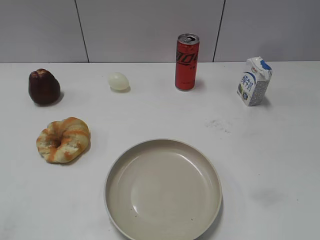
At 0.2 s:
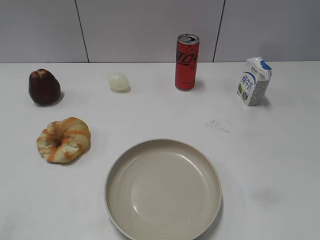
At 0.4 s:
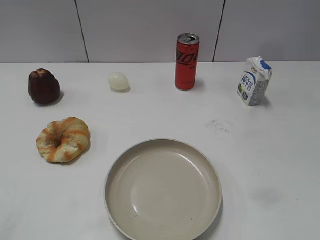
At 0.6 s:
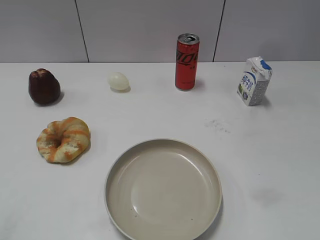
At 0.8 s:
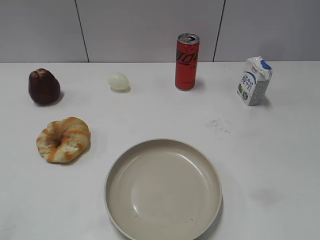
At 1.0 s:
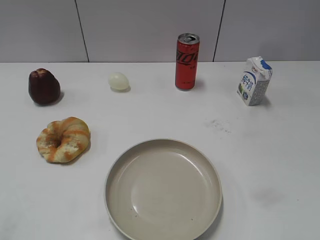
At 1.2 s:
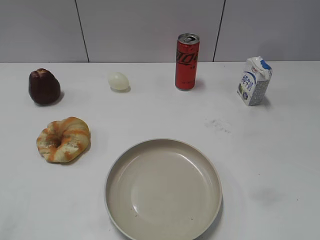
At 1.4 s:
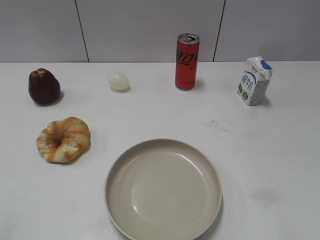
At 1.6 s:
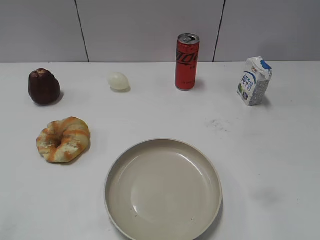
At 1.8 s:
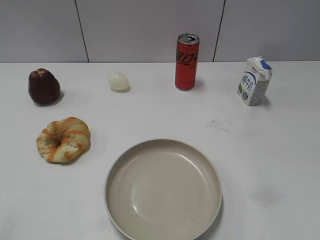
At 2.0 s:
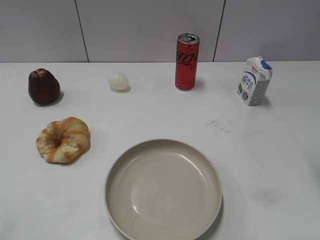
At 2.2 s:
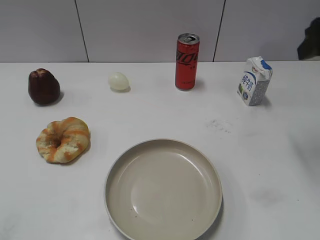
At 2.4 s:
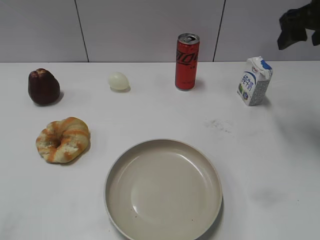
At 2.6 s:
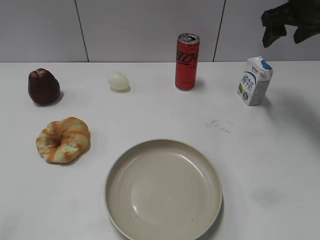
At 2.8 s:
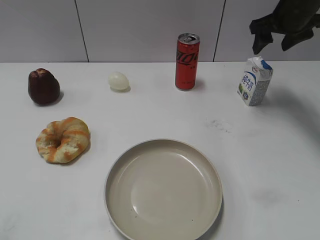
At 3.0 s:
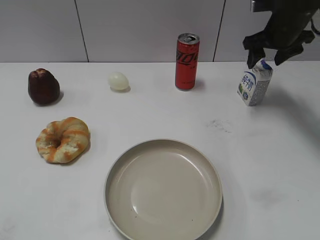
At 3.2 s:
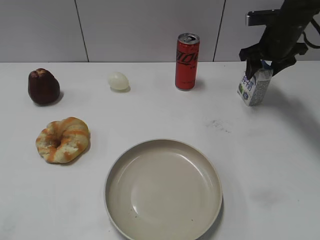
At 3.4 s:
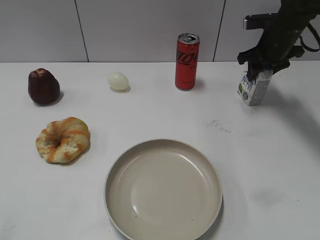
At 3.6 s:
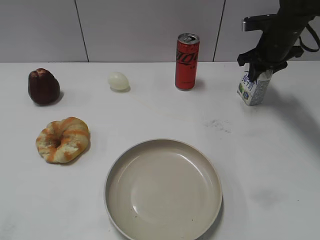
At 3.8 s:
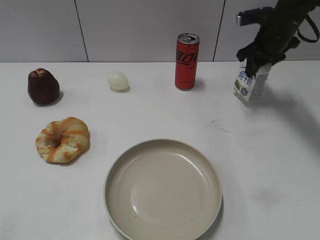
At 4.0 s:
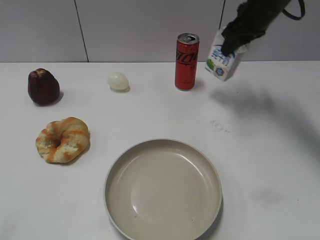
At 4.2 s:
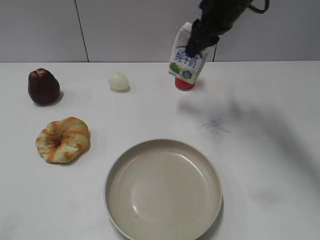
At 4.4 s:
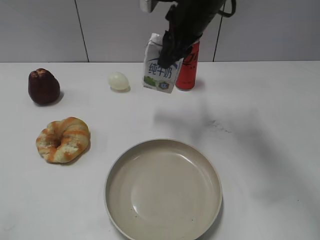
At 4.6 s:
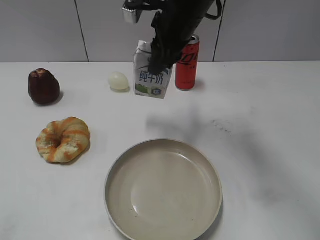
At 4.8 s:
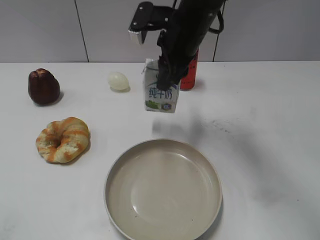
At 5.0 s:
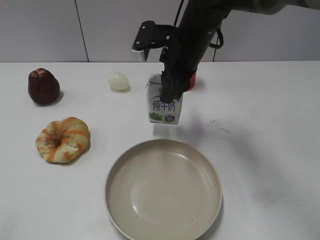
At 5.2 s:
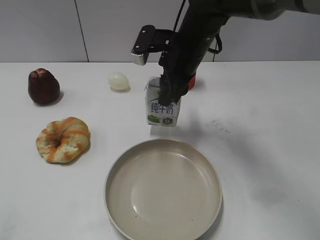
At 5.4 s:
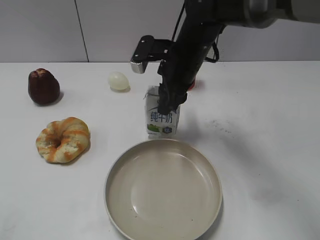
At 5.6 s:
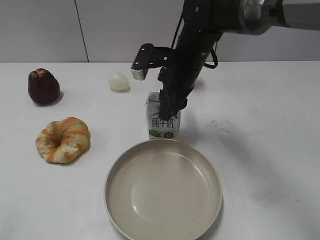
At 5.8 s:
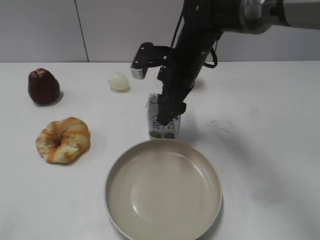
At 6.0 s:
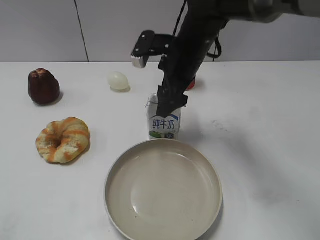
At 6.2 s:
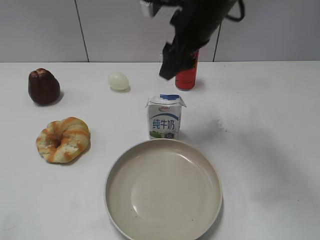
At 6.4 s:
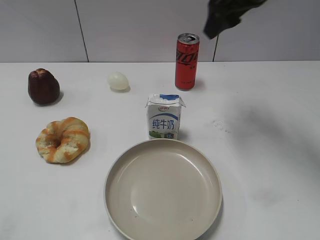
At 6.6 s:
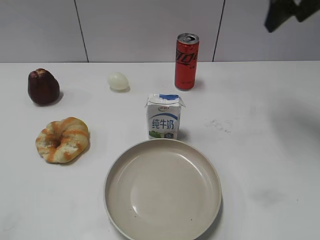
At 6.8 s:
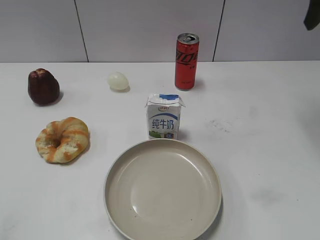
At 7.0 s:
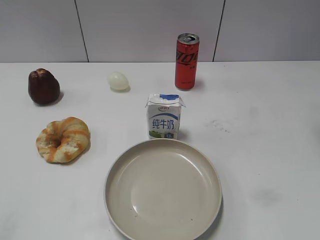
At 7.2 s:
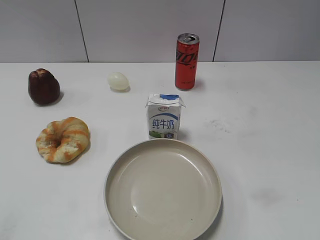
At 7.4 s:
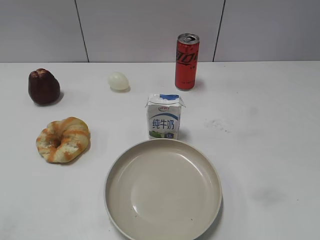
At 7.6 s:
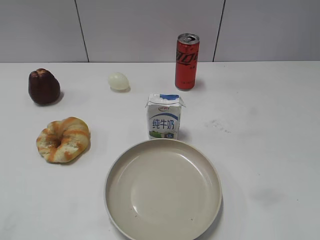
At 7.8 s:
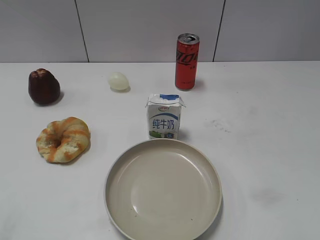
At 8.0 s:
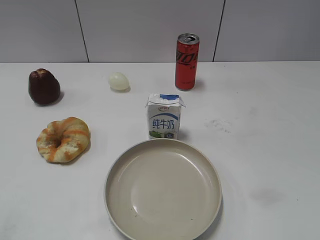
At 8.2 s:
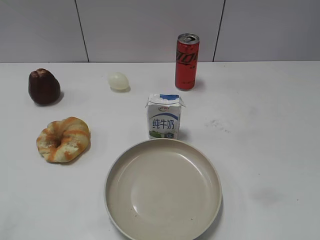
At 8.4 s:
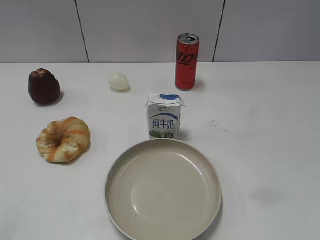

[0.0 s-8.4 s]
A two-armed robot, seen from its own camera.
Step, 1.0 to 3.6 s: Grasp the milk with right gripper.
Step, 3.8 to 5.8 s: Place the milk on the table with right gripper.
1.4 to 2.8 s: The right gripper shifts some 40 cm forward.
2.8 to 4.2 s: The right gripper heads to the left, covering about 15 cm, and closes its fingers.
4.2 to 5.6 s: The right gripper goes about 15 cm downward, to the left and backward.
5.6 to 7.0 s: The right gripper shifts some 35 cm to the right and upward, and opens its fingers.

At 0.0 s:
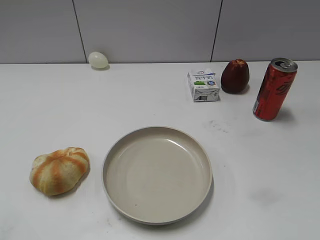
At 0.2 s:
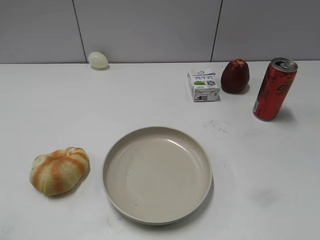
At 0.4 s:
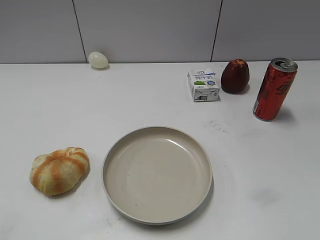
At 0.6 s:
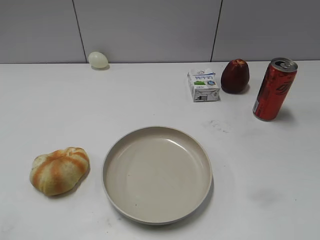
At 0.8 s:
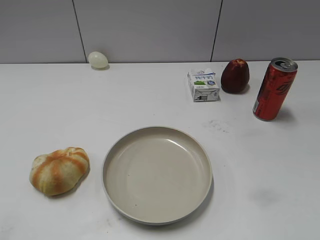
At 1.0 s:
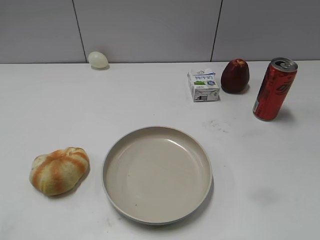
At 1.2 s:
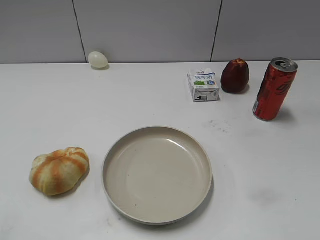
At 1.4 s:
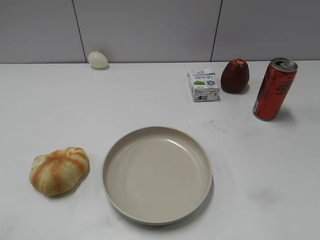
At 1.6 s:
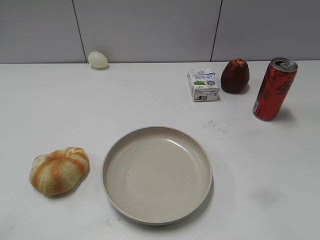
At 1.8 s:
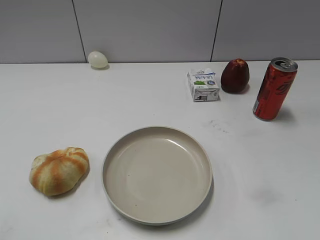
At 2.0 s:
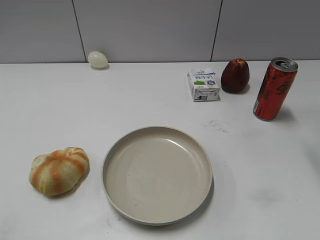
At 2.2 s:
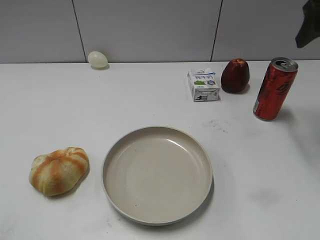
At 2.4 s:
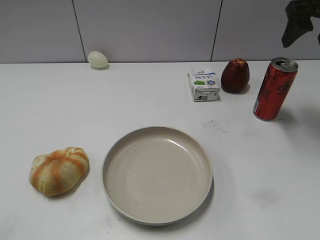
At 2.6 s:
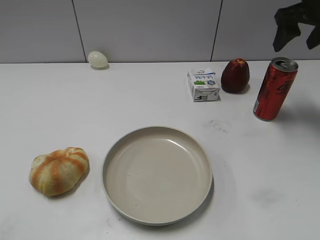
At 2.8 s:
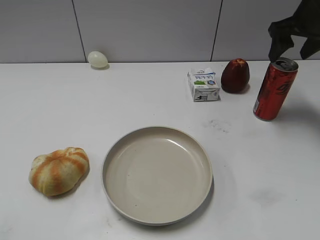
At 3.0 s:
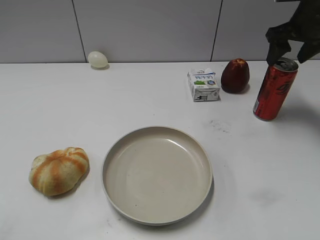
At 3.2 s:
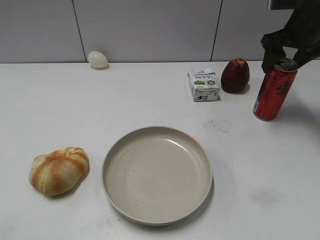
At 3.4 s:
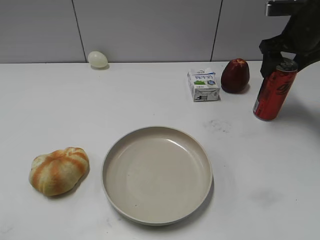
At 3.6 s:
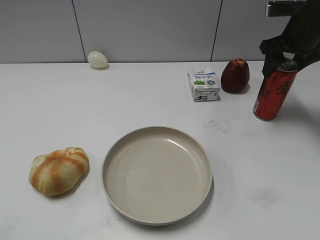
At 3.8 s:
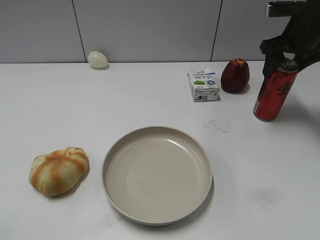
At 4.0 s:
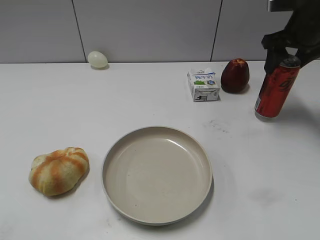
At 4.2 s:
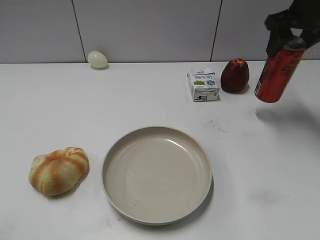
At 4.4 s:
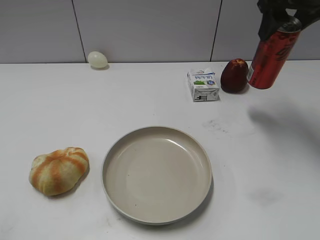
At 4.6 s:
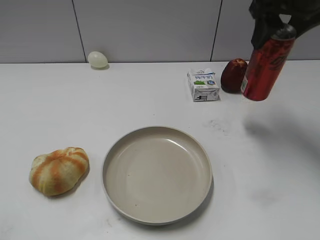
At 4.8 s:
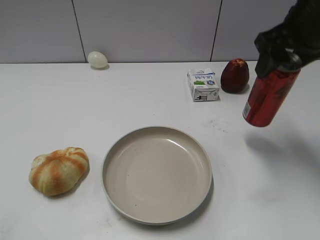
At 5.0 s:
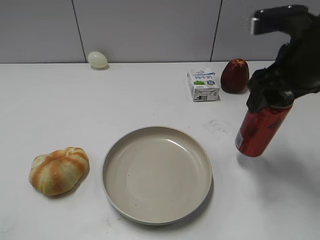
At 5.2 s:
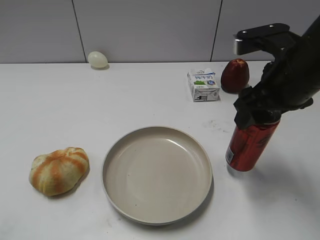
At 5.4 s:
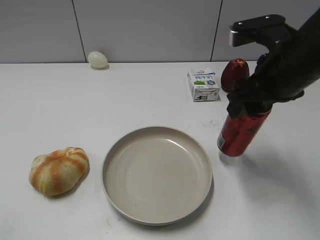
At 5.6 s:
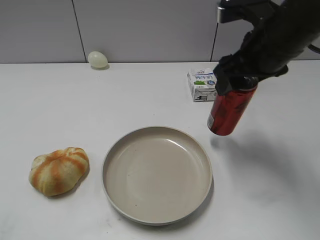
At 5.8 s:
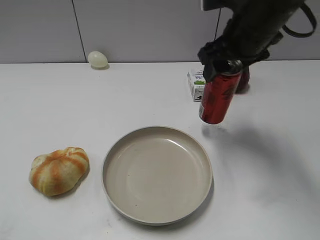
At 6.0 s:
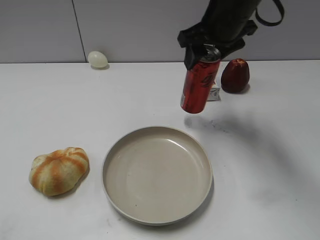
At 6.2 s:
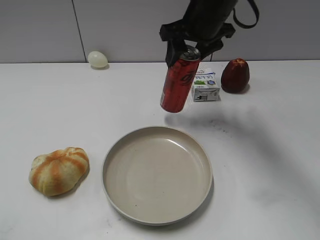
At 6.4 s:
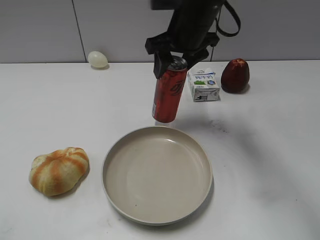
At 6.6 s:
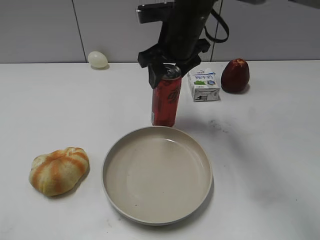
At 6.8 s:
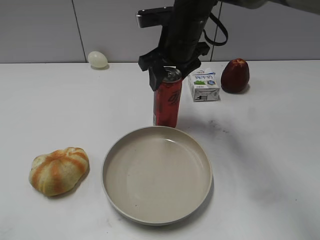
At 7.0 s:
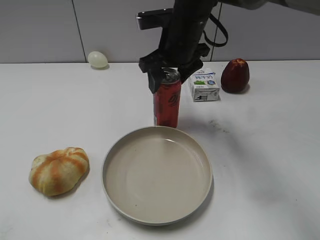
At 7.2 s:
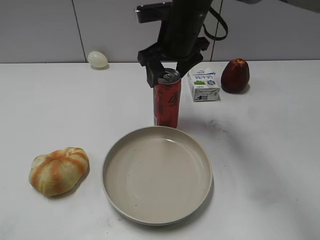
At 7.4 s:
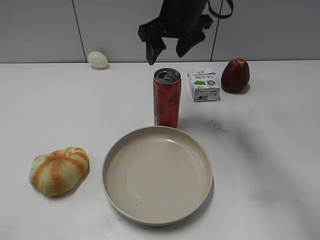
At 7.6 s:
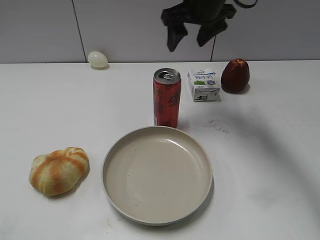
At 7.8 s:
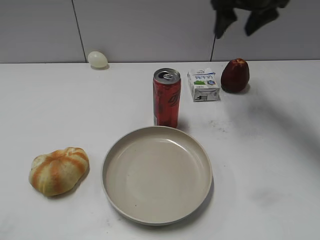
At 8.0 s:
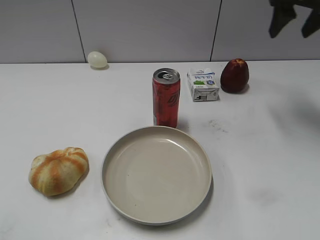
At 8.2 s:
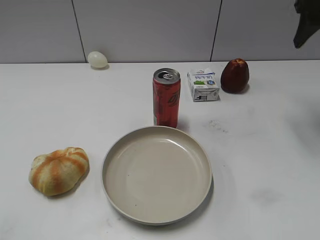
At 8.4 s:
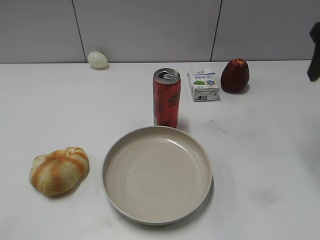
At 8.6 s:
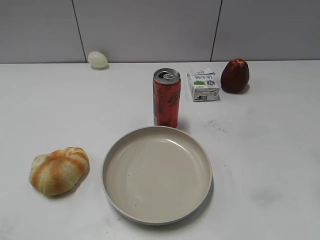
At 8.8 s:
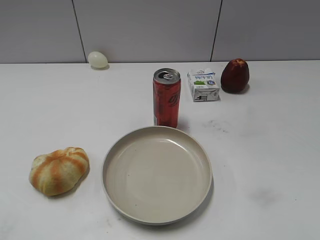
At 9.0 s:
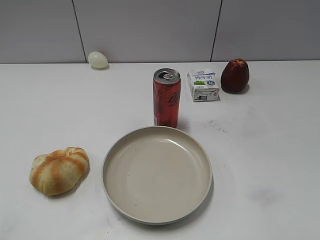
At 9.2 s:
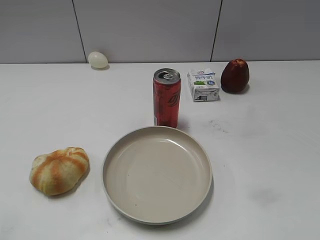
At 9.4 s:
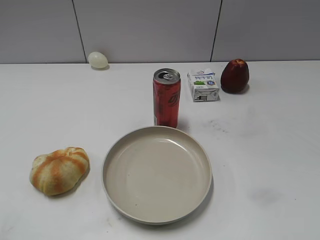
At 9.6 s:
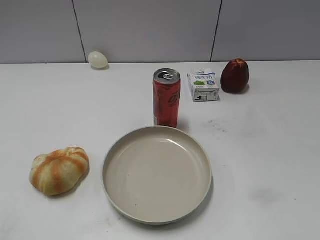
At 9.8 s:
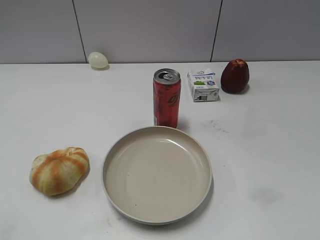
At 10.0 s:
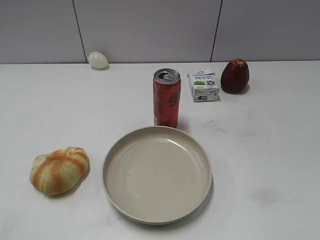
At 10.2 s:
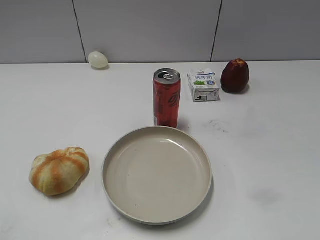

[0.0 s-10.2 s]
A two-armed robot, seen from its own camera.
Step, 0.8 to 3.8 s: Grasp the cola with right gripper.
Step, 4.0 to 7.2 s: Place the cola on the table with right gripper.
1.4 to 3.0 s: The right gripper heads forward, covering some 40 cm.
3.0 to 4.4 s: The right gripper is displaced upward by approximately 5 cm, and closes.
4.4 to 5.8 s: The right gripper heads to the left and downward, covering approximately 10 cm, and reaches roughly 15 cm backward, then returns.
5.8 to 7.2 s: The right gripper shifts about 10 cm to the left and forward, and opens.
7.2 to 8.8 s: The right gripper moves to the right and backward, about 35 cm, and closes its fingers.
